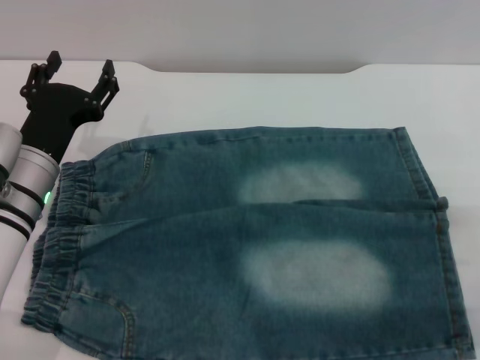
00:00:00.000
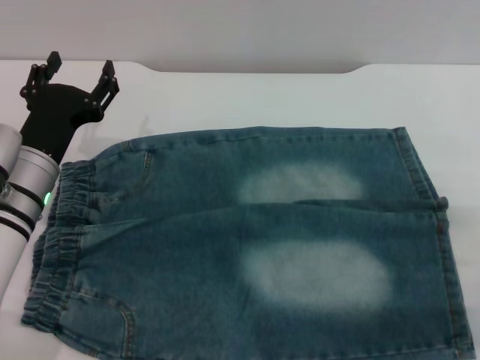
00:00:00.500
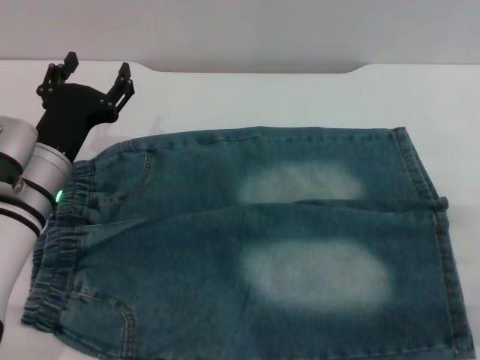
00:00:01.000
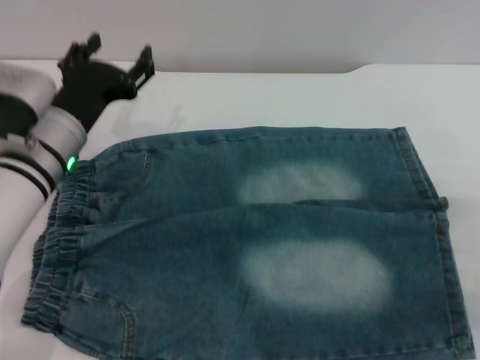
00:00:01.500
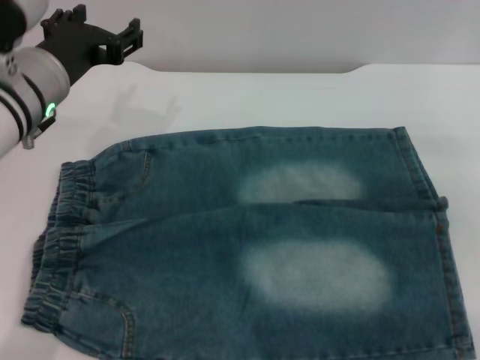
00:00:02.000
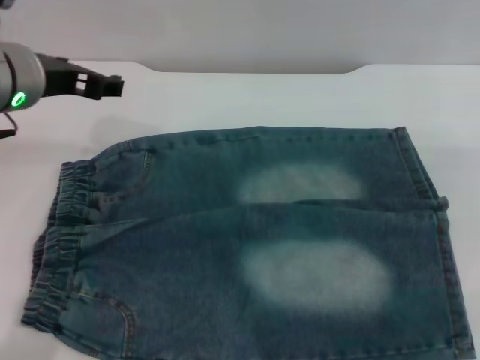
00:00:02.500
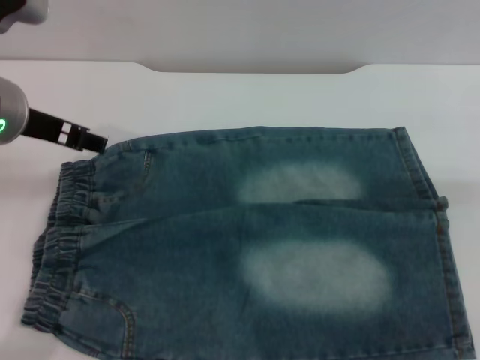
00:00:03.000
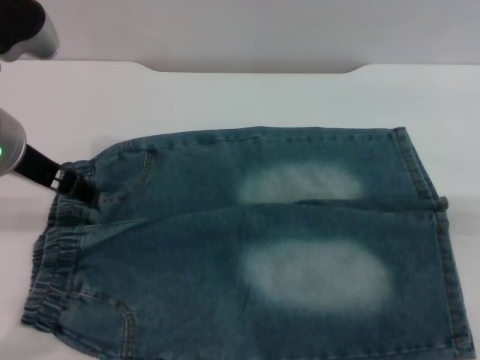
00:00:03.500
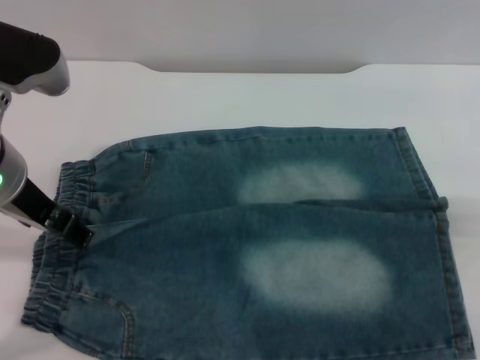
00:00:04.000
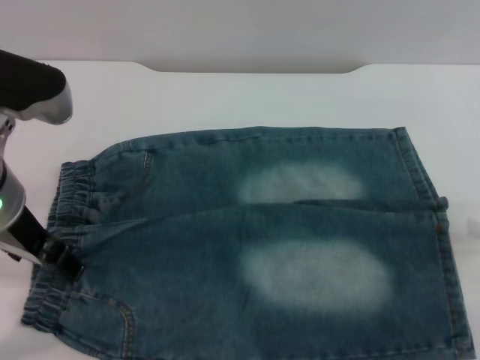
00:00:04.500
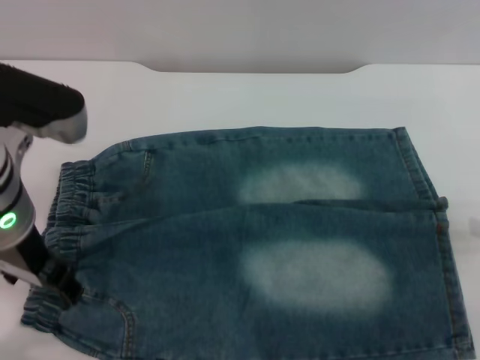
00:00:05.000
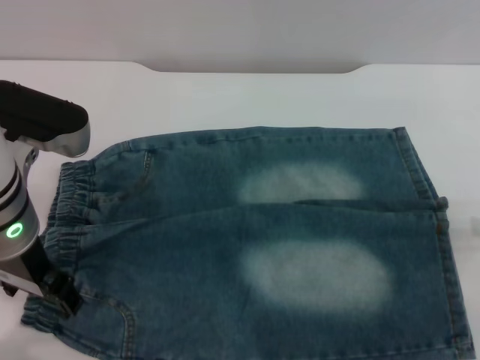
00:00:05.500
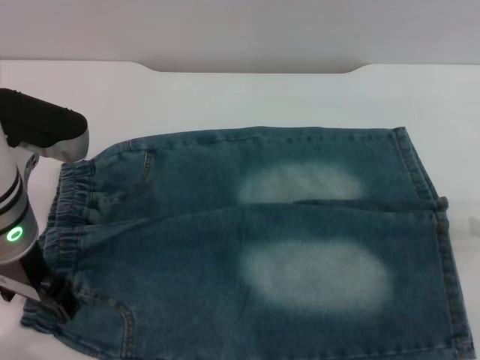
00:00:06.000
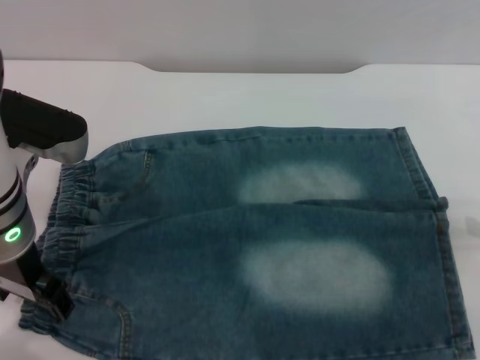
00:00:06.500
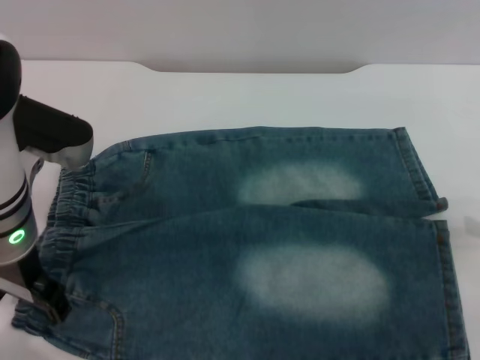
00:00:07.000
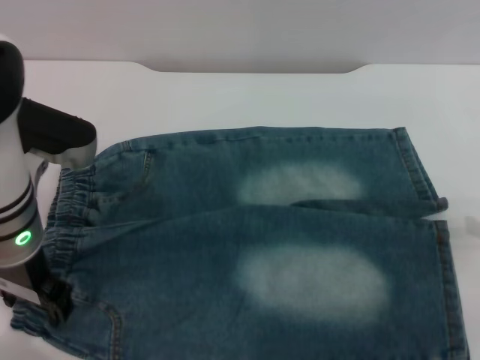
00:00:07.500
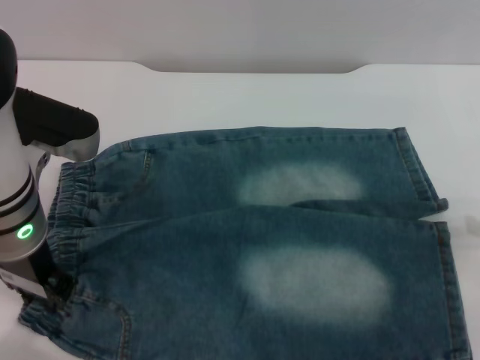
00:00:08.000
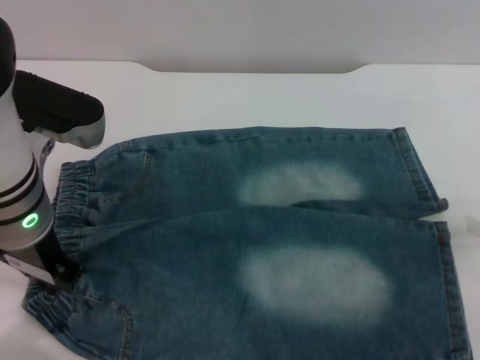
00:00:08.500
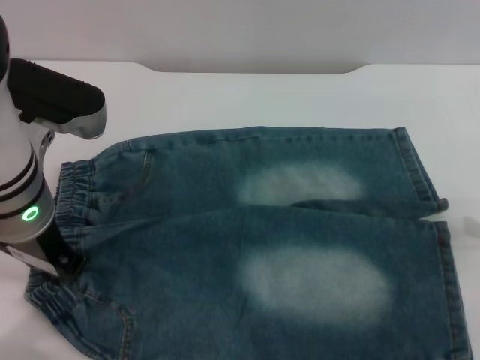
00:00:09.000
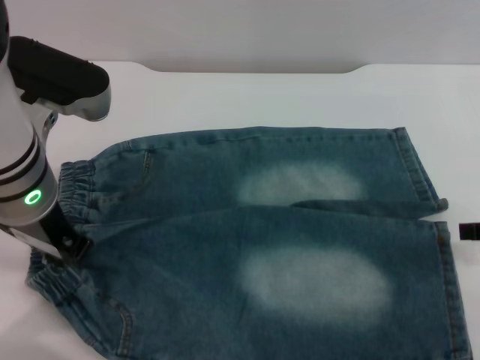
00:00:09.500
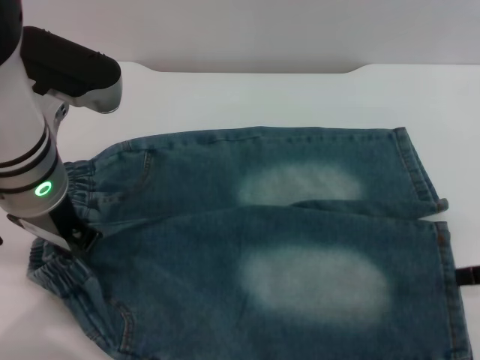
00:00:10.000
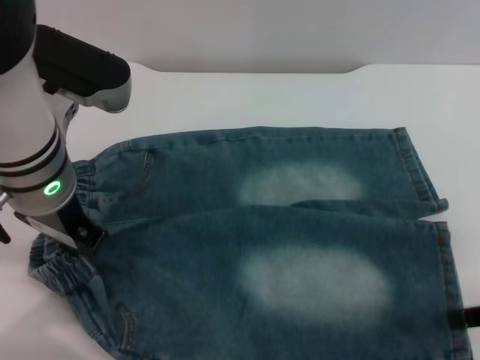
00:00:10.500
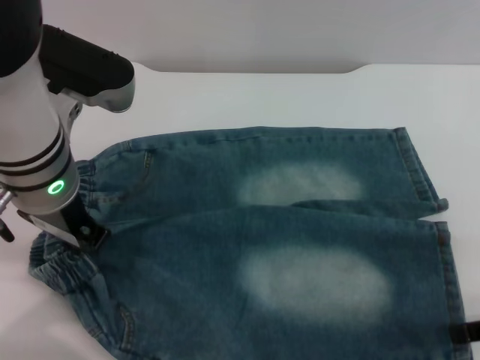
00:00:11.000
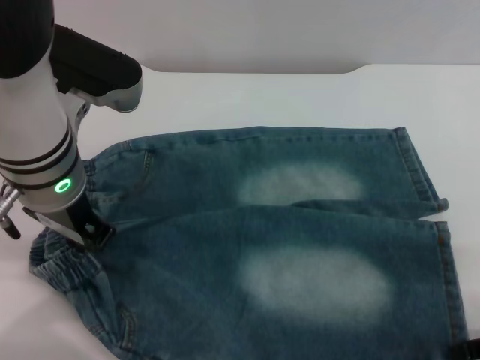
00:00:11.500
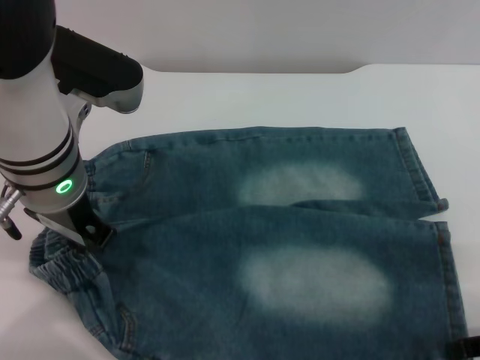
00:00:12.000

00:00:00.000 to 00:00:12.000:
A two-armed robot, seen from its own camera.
00:00:00.000 to 00:00:02.000: The left gripper travels upward by about 10 cm.
00:00:02.000 to 00:00:04.000: The left gripper is displaced backward by some 5 cm.
00:00:04.000 to 00:00:06.000: There are only small adjustments of the grippers.
00:00:06.000 to 00:00:08.000: The left gripper closes its fingers.
00:00:08.000 to 00:00:10.000: The left gripper closes up.
00:00:10.000 to 00:00:12.000: The right gripper changes place by roughly 5 cm.

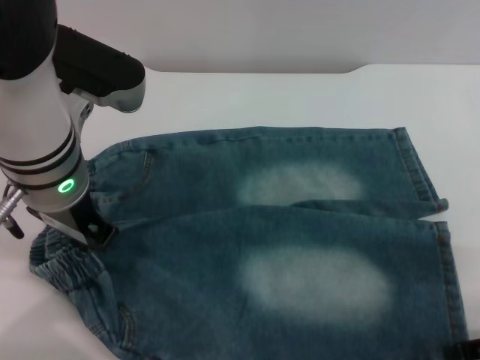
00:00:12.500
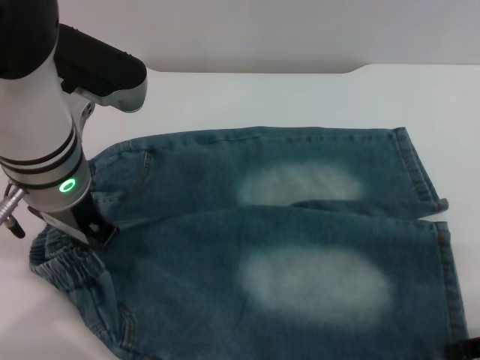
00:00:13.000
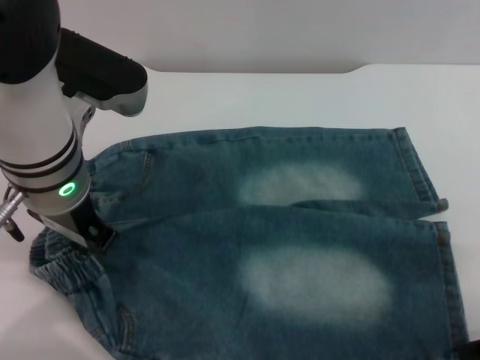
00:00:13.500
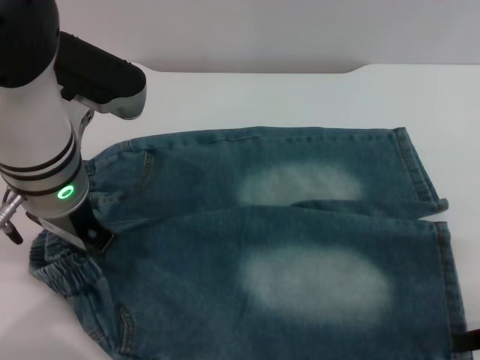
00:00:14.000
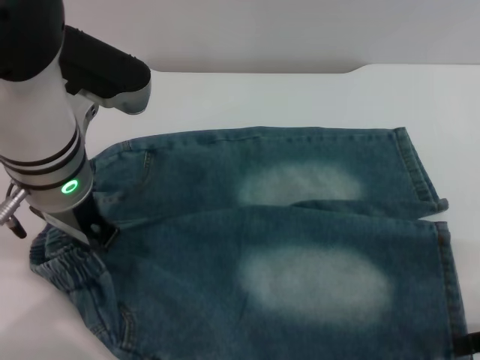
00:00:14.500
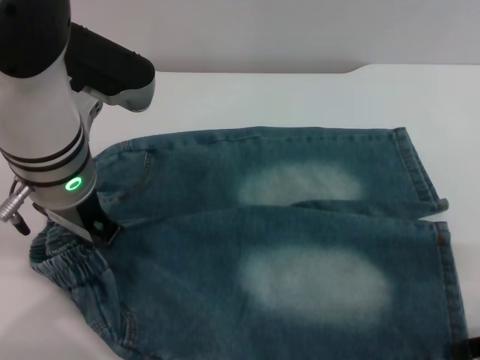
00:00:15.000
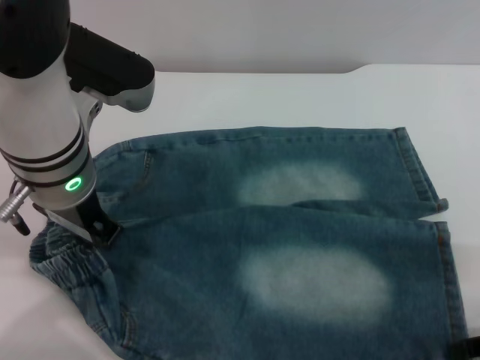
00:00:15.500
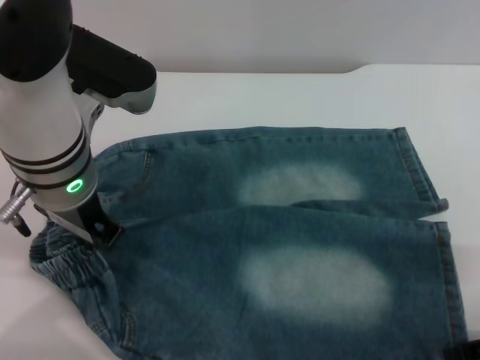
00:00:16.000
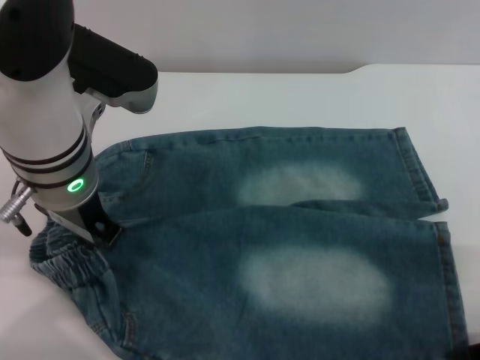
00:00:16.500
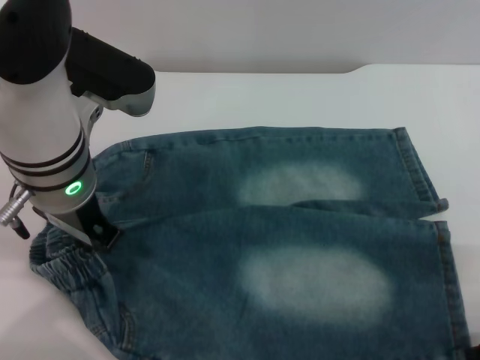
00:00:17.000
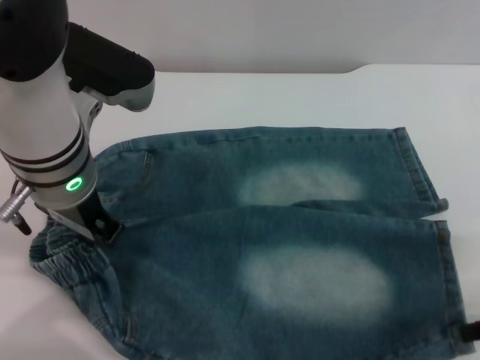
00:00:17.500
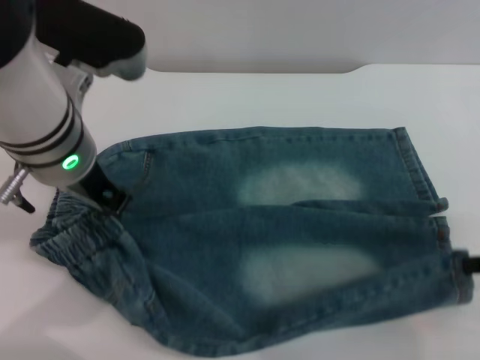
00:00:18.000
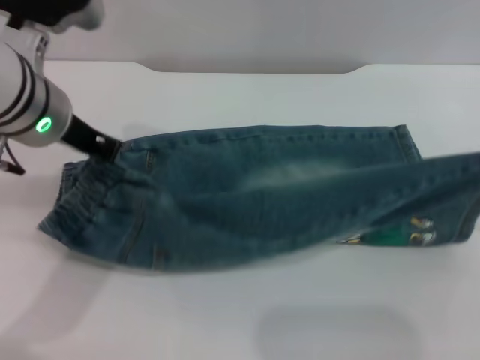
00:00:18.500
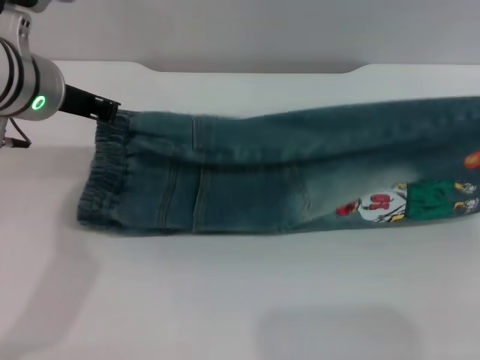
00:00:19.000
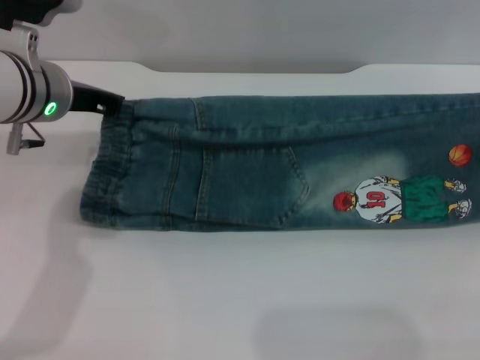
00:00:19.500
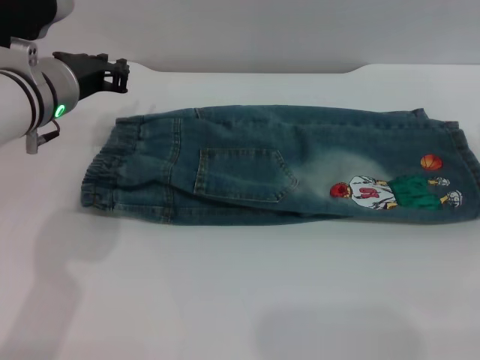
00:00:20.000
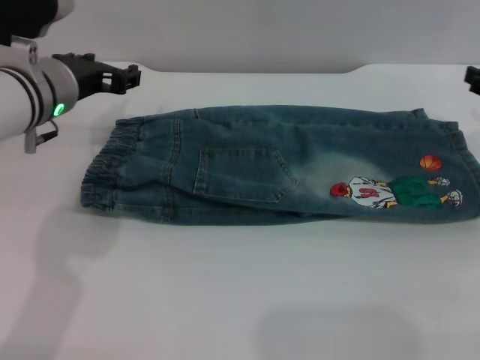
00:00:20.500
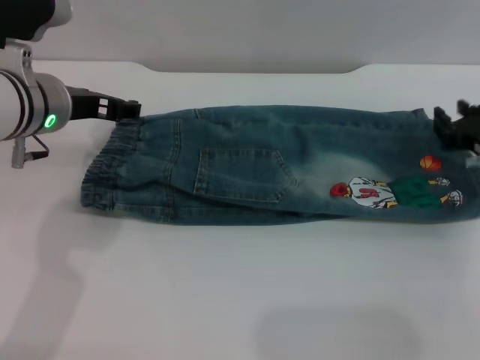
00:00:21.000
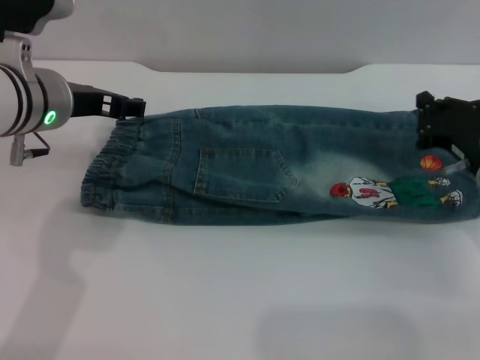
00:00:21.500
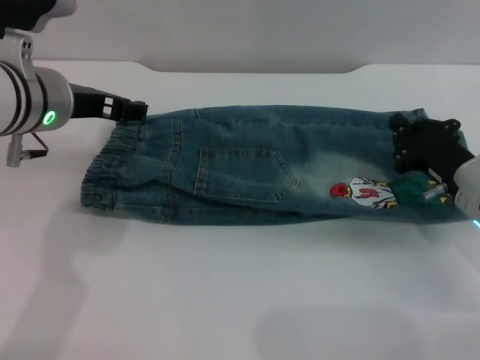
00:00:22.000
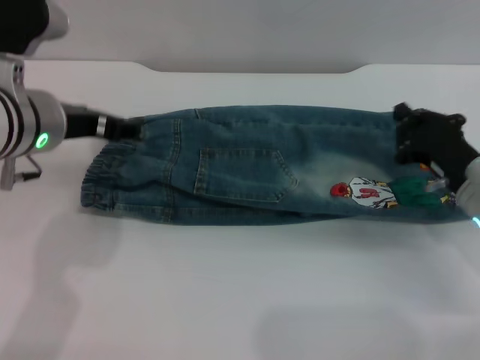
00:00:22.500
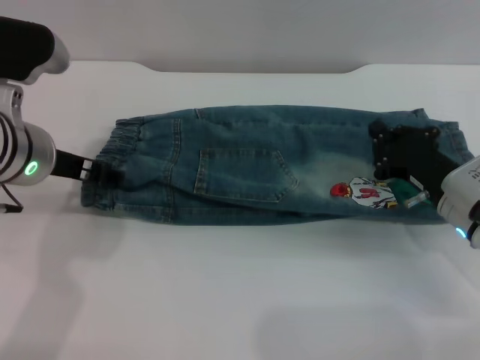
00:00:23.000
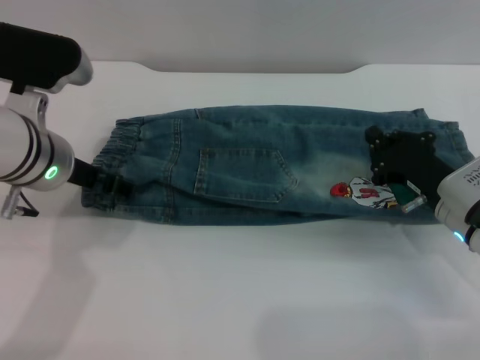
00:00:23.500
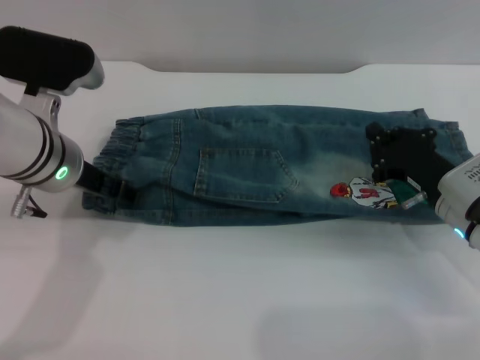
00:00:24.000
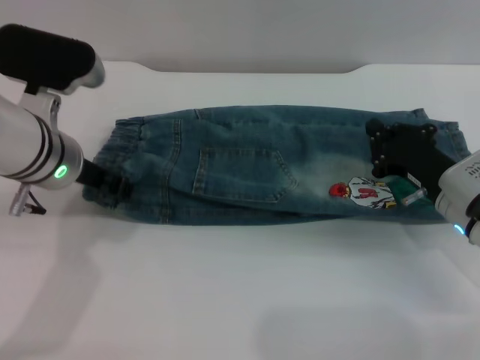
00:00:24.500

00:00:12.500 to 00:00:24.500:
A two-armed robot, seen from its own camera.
Step, 00:00:12.500 to 00:00:20.000: Fold the bottom of the pants upward with both grippers.
00:00:14.500 to 00:00:16.500: The grippers stay close to where they were, moving slightly.
00:00:16.500 to 00:00:18.500: The right gripper shifts approximately 10 cm upward, and closes.
00:00:18.500 to 00:00:20.500: The left gripper goes some 5 cm downward, and opens up. The right gripper shifts roughly 10 cm forward and downward, and opens.
00:00:20.500 to 00:00:22.500: The left gripper opens. Meanwhile the right gripper moves downward and to the left, some 10 cm, and closes its fingers.

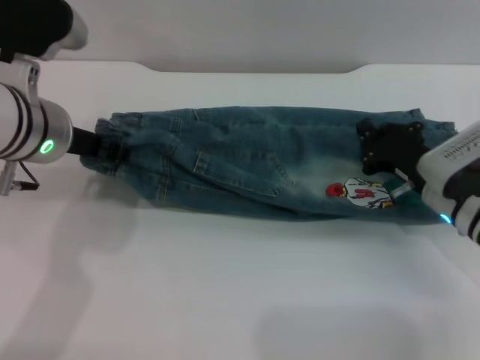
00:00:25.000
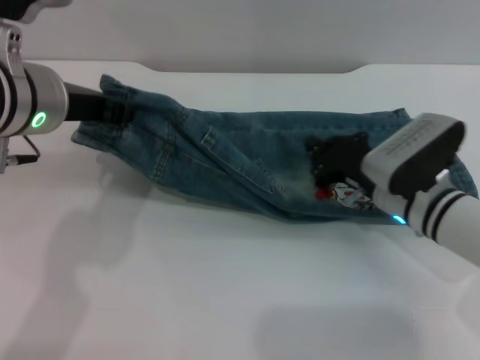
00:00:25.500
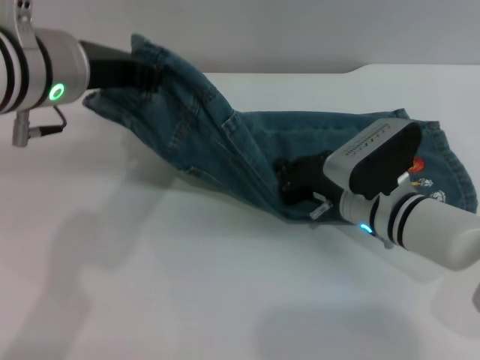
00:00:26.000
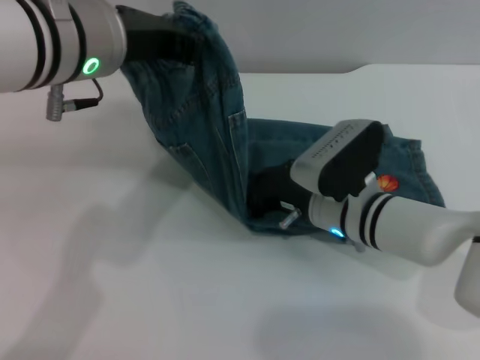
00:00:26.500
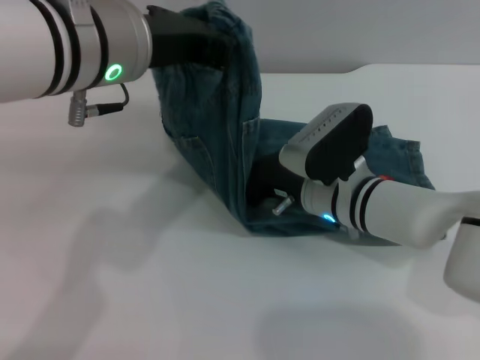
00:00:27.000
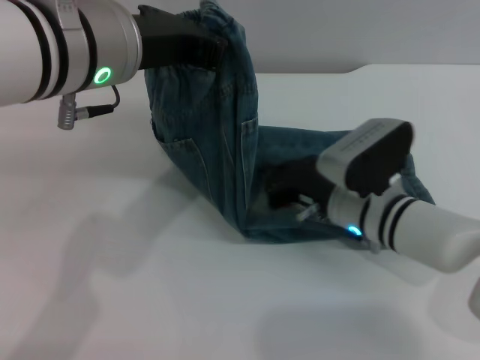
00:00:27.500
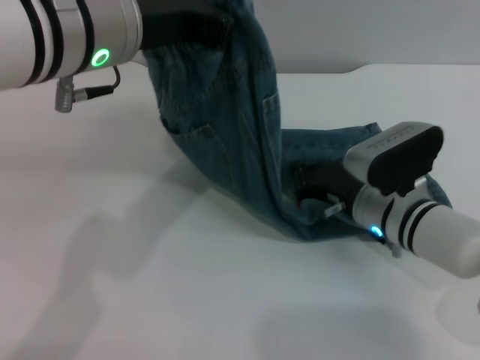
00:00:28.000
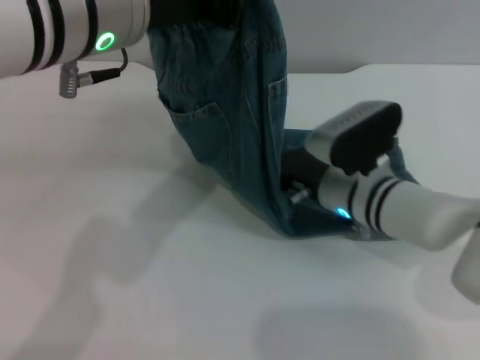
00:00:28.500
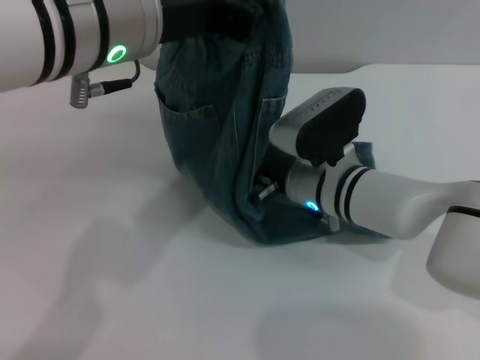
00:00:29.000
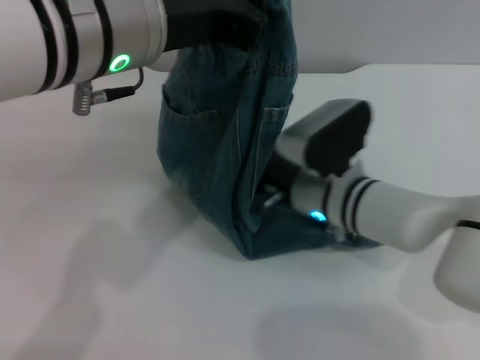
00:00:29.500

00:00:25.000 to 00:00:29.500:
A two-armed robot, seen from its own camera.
00:00:25.000 to 00:00:27.000: The left gripper shifts some 10 cm upward and to the right, and closes up; the right gripper shifts about 15 cm to the left.
